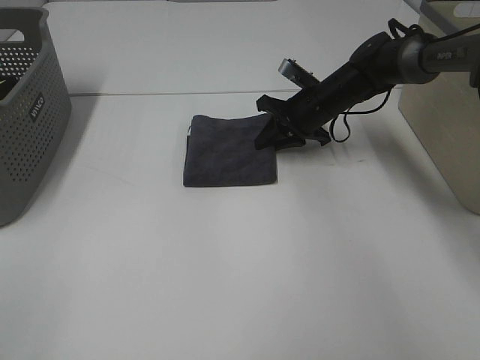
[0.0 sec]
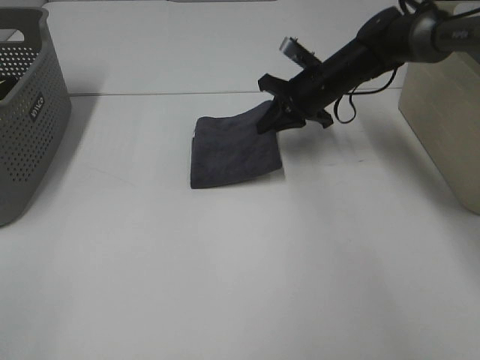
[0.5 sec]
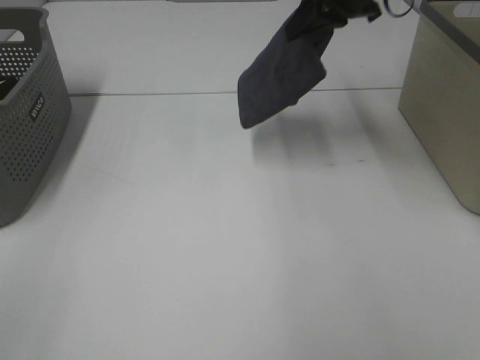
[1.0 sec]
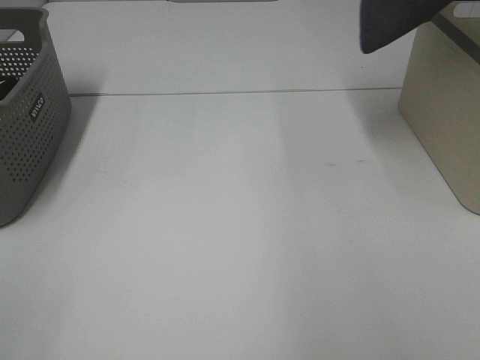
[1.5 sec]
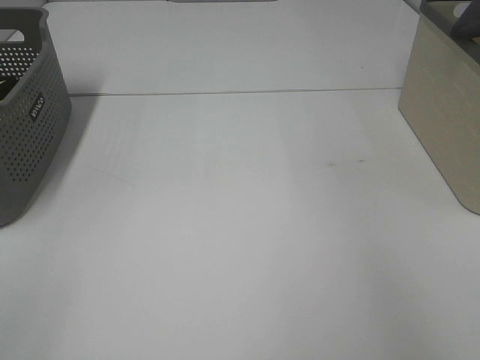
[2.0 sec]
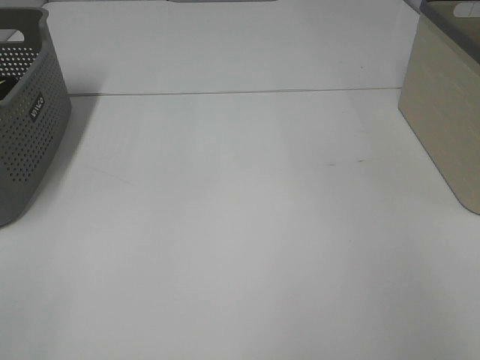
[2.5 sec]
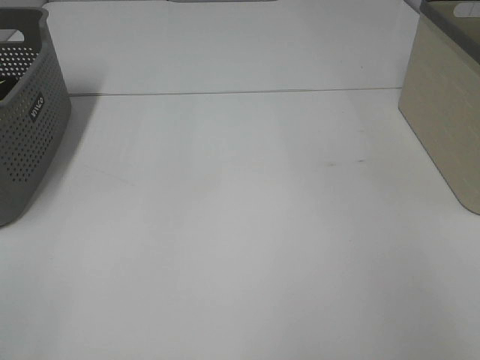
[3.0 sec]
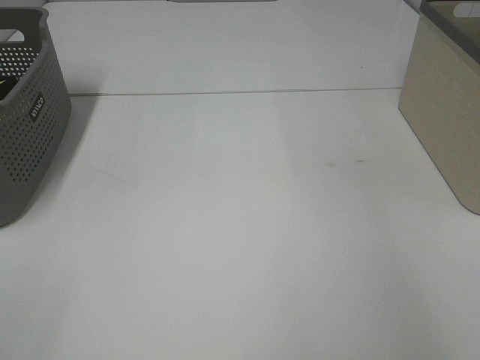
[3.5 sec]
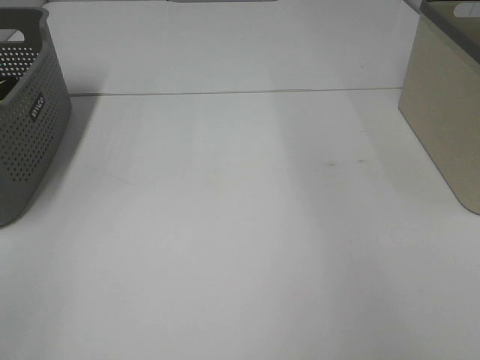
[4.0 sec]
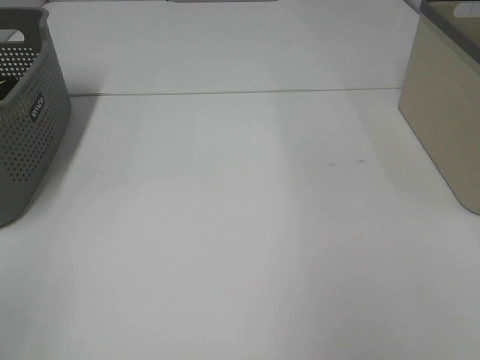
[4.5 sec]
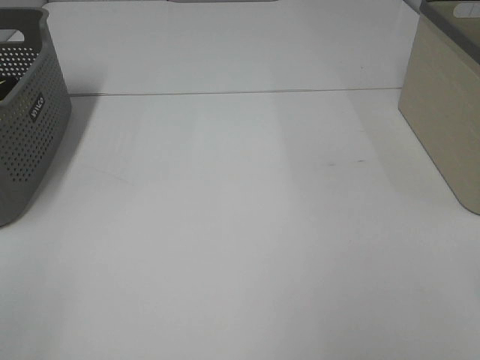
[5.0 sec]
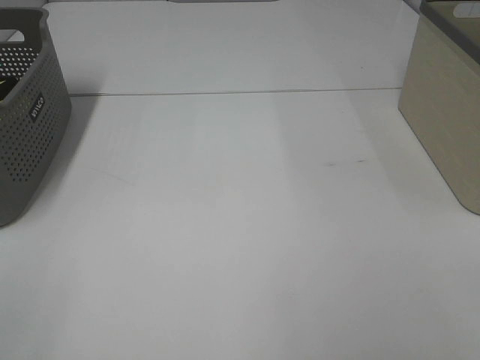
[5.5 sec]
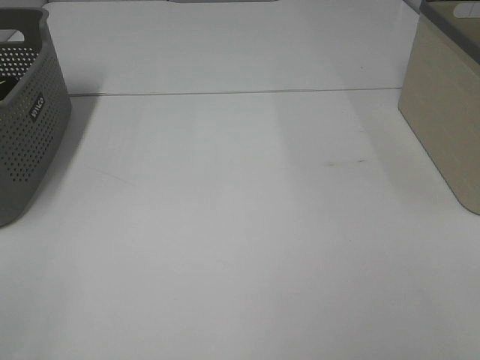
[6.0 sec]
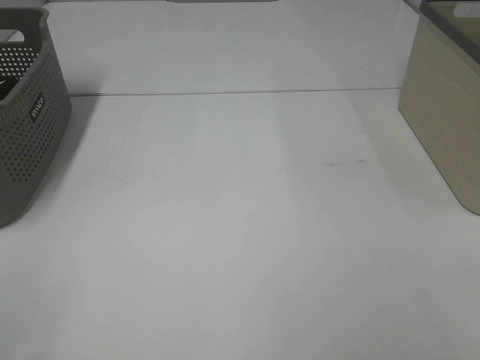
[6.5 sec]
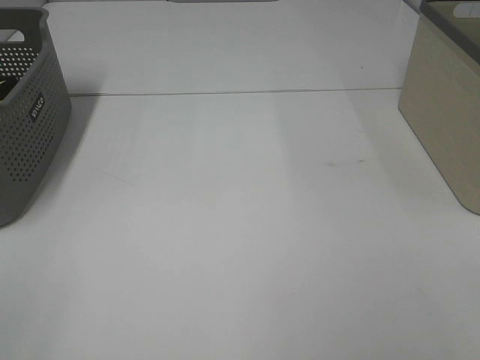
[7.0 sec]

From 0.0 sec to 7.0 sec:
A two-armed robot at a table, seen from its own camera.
Step, from 0.5 sec to 3.0 sec: Right hand: place the grey towel in right basket.
From 0.0 sec to 2.0 sec: The right gripper heads upward and to the right, covering about 40 cm.

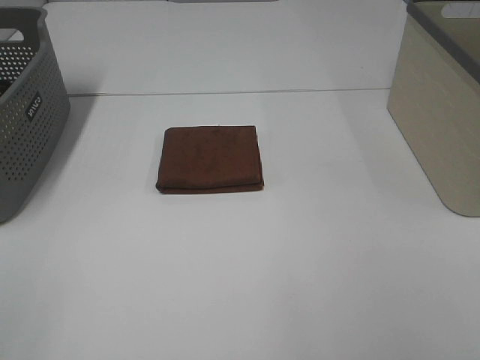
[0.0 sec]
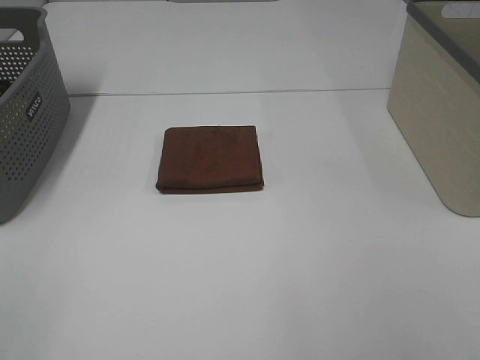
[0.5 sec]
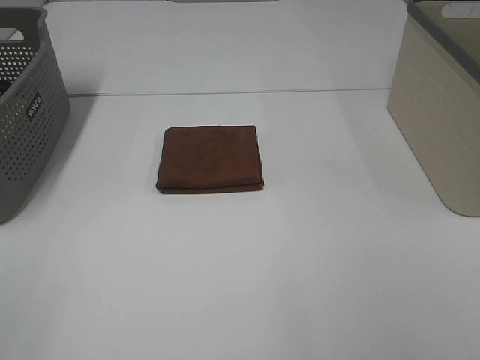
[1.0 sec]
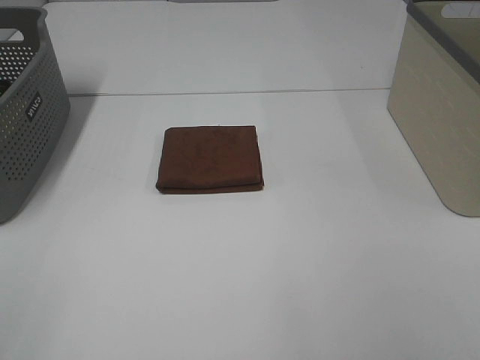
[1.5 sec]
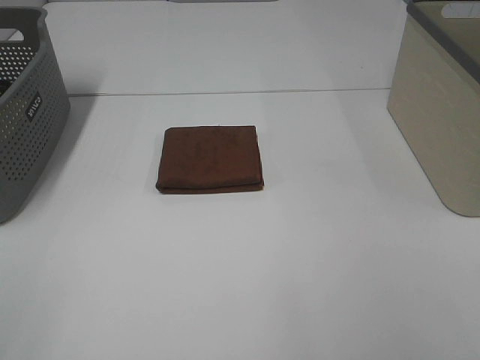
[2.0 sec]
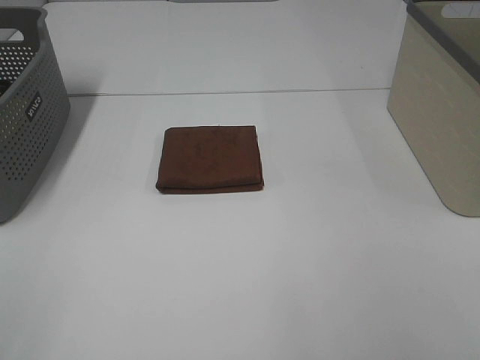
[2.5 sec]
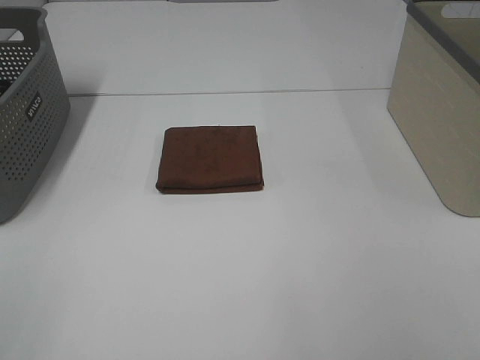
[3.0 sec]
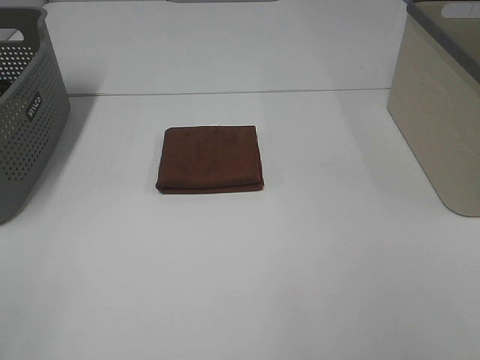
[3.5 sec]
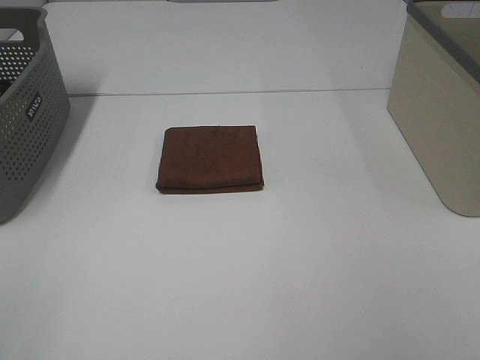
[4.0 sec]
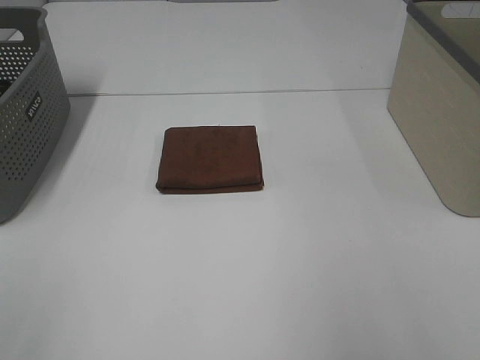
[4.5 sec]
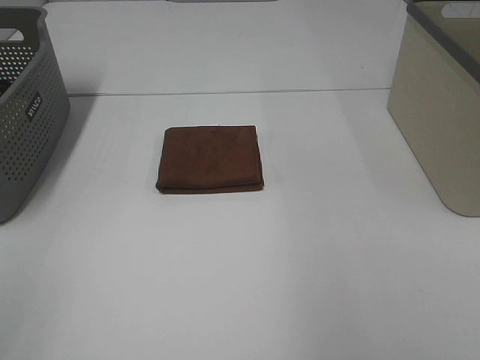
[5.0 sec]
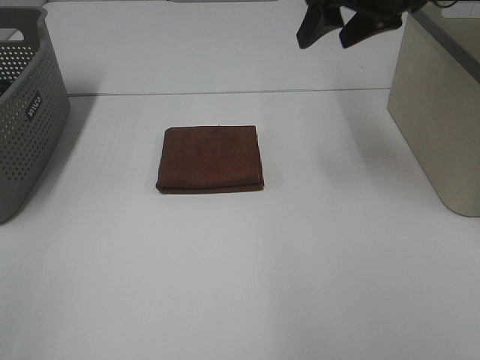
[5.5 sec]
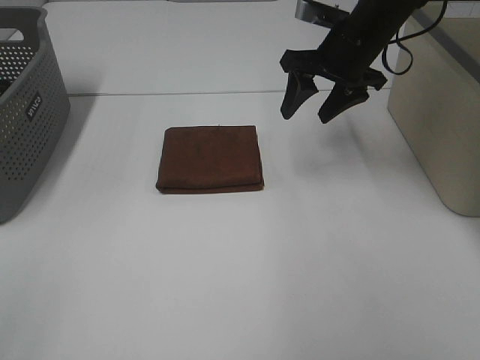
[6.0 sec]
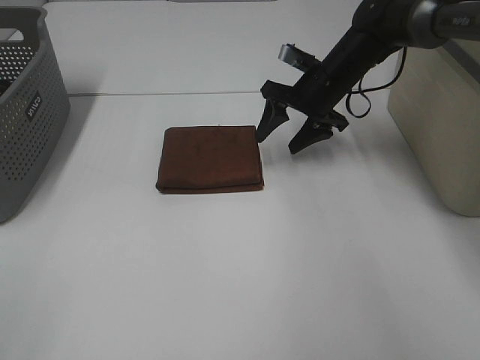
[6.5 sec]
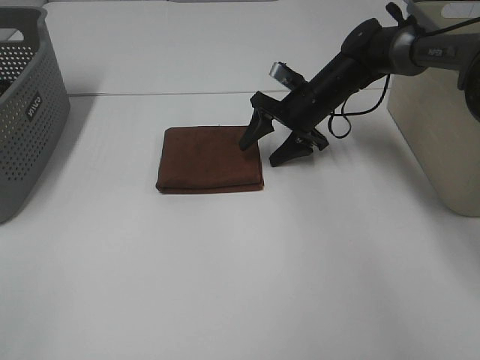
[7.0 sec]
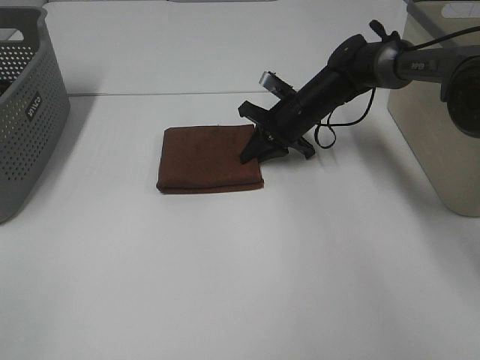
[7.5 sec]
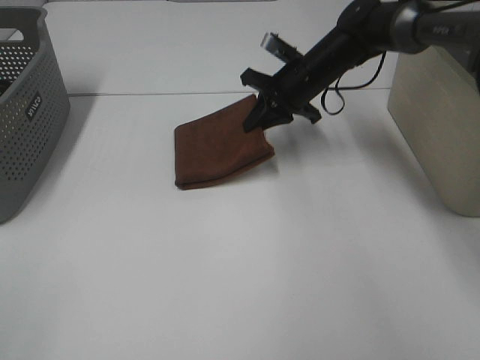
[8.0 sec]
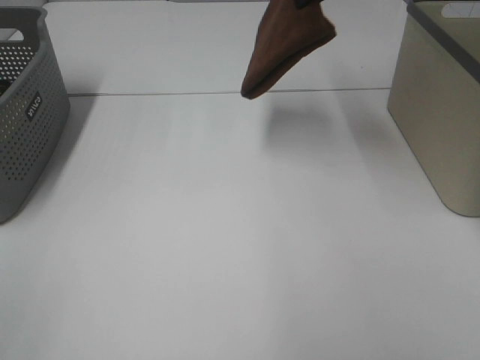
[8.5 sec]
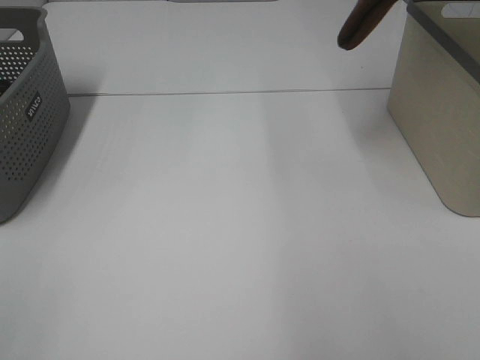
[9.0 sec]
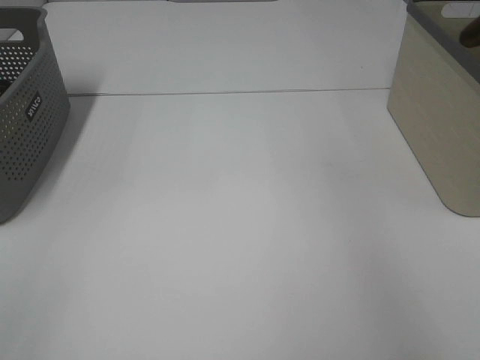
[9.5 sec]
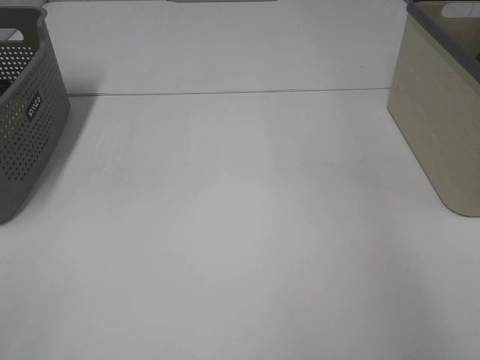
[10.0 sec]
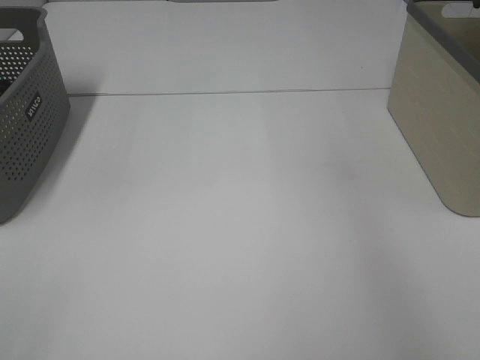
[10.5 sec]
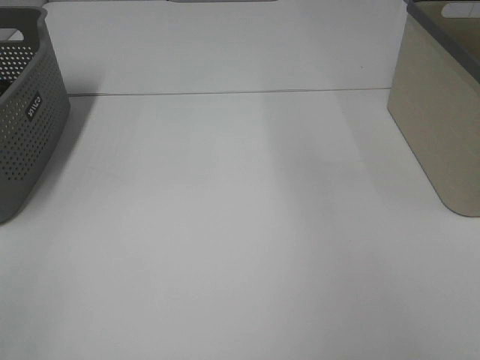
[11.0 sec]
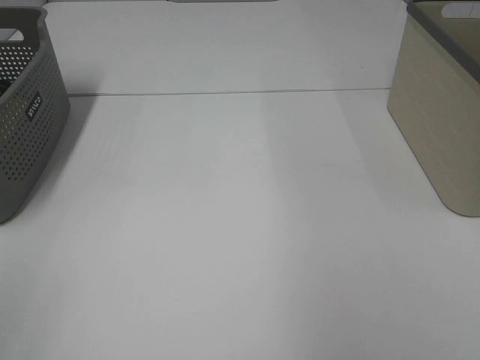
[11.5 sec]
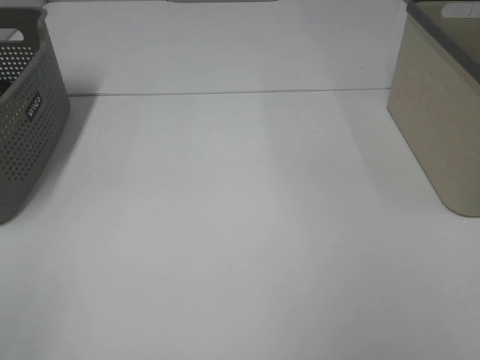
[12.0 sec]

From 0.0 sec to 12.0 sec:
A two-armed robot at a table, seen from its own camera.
Step, from 0.0 sec to 7.5 sec: Right hand: grab the folded brown towel.
Step, from 8.0 sec to 10.0 sec: Right hand: place the brown towel in right basket.
From 0.0 sec to 2.0 sec: Neither gripper changes place.
From 4.0 sec to 6.0 sec: The right gripper moves forward, roughly 40 cm.
From 6.0 sec to 8.0 sec: The right gripper travels downward by roughly 5 cm, and closes its fingers.
From 8.0 sec to 10.0 sec: The right gripper travels to the right and upward by roughly 35 cm, and opens up.

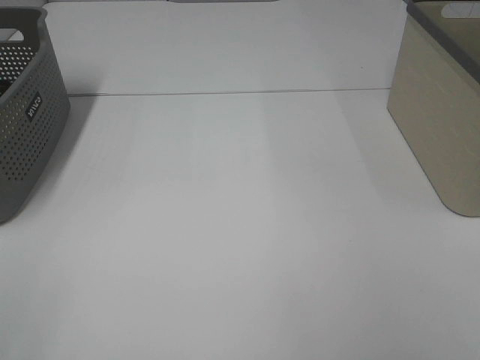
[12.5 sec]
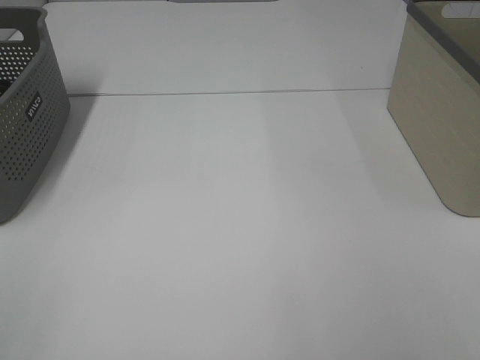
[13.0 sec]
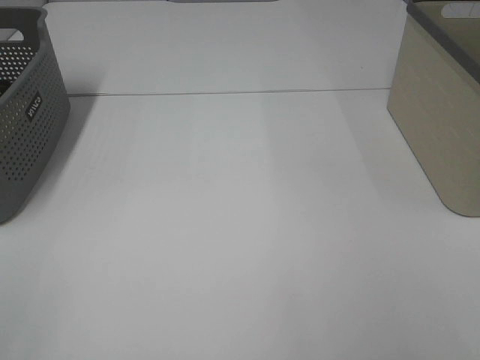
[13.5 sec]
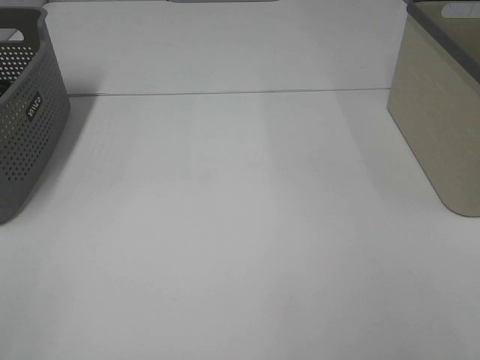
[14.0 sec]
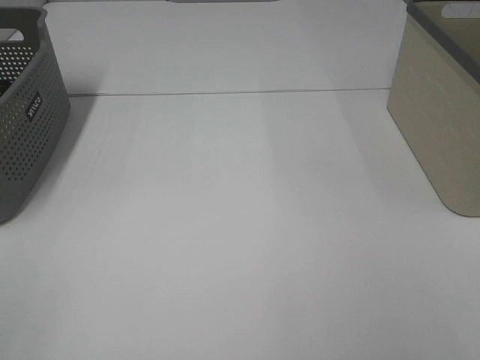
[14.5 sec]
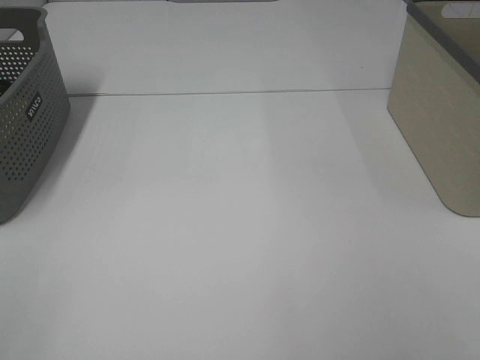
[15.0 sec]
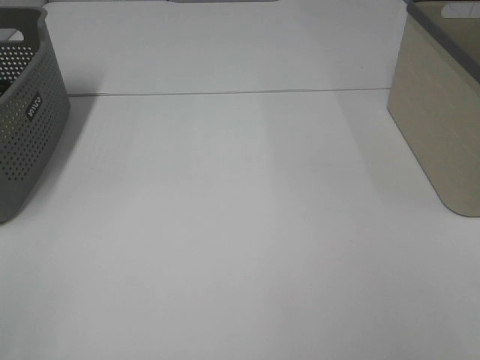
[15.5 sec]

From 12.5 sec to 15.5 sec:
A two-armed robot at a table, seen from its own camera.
From 14.0 sec to 15.5 sec: Both grippers stay about where they are.

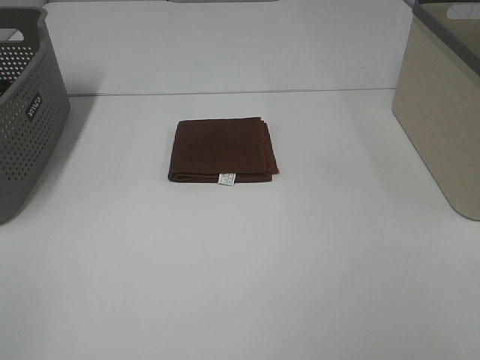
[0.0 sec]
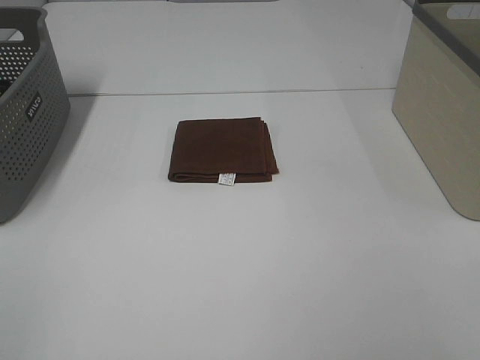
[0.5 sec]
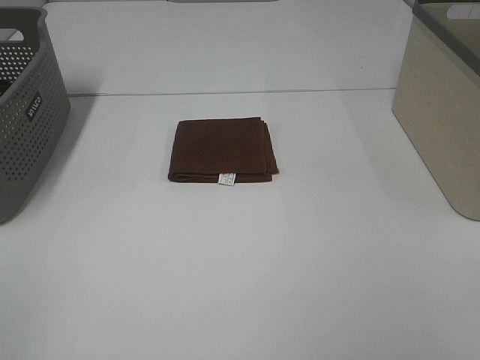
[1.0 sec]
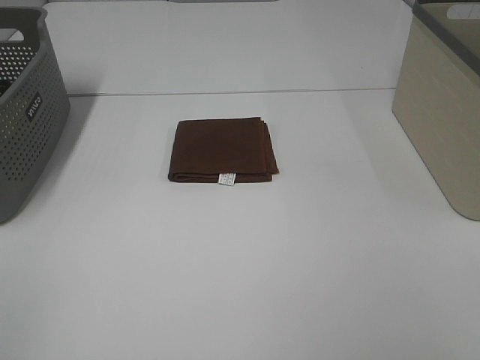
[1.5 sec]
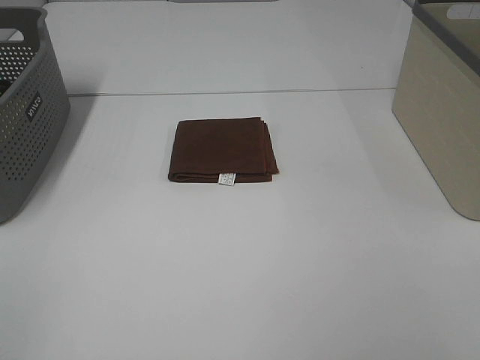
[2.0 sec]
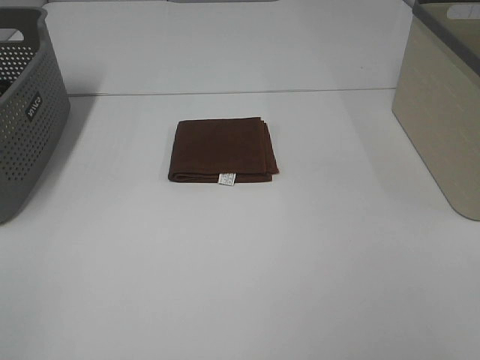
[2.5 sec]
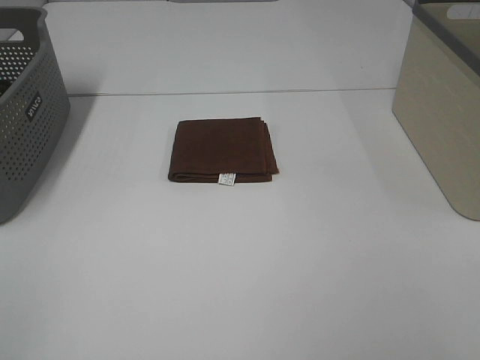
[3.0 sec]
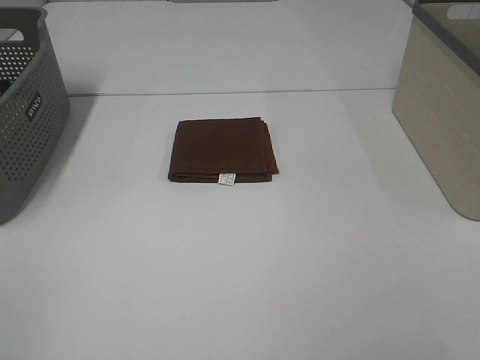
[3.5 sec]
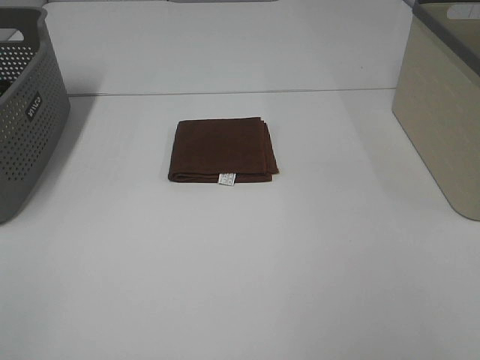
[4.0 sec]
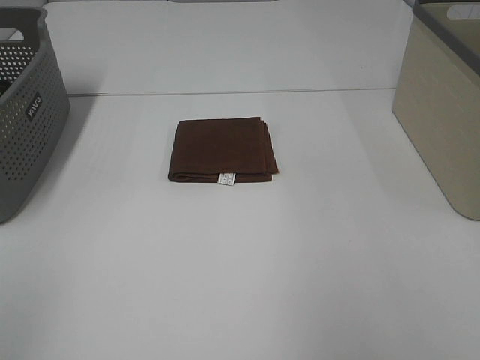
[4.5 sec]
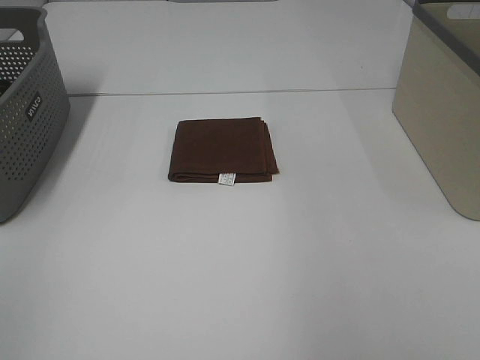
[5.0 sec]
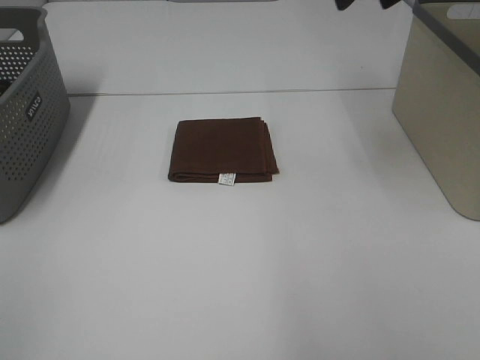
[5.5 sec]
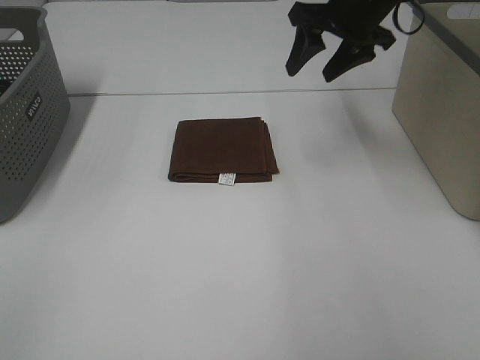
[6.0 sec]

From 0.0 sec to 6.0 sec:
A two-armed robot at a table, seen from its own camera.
From 0.0 sec to 2.0 sec: Both grippers stay about where they are.
From 4.0 sec to 6.0 sec: The right gripper goes some 40 cm forward.
